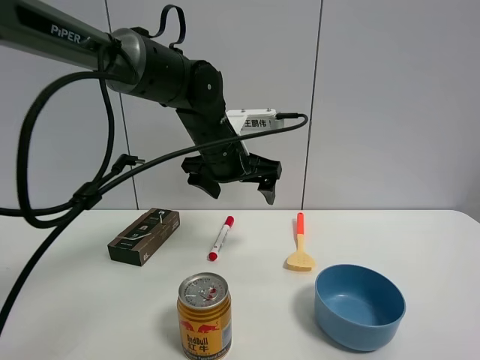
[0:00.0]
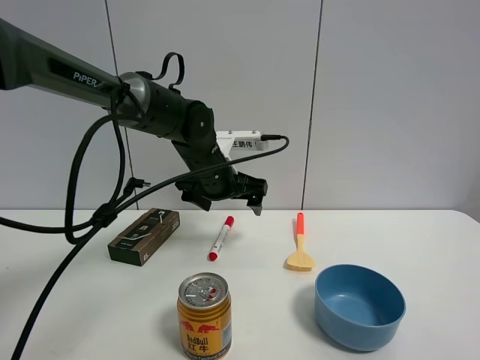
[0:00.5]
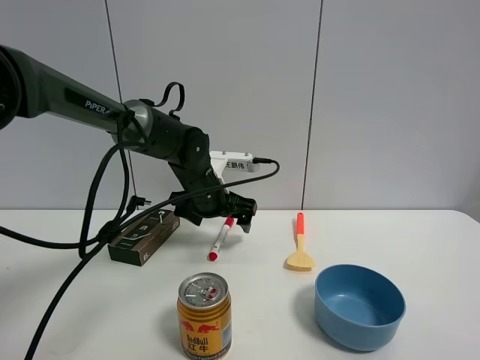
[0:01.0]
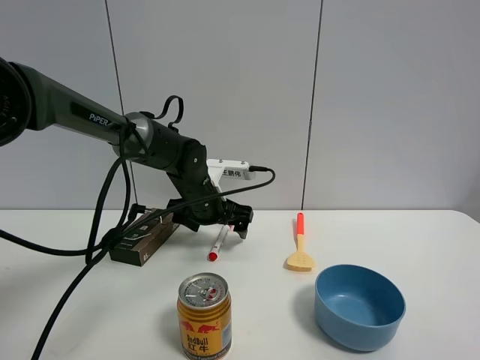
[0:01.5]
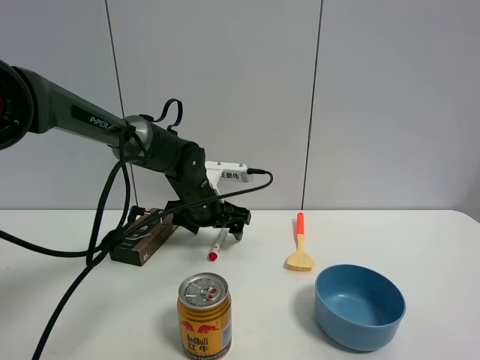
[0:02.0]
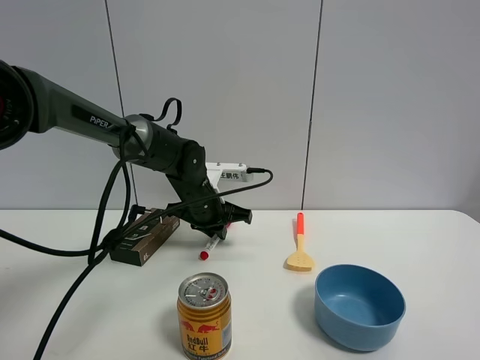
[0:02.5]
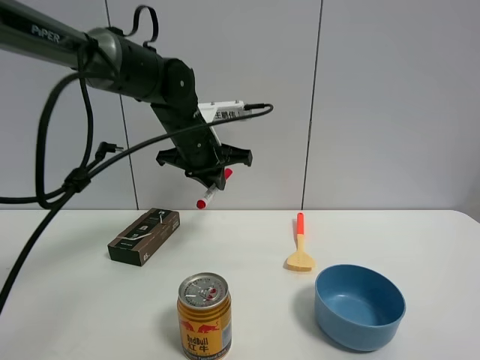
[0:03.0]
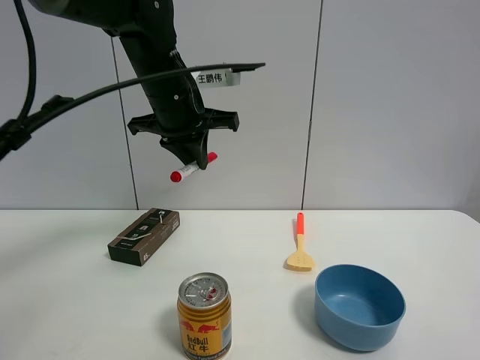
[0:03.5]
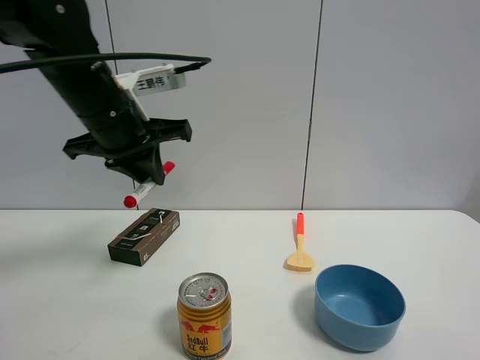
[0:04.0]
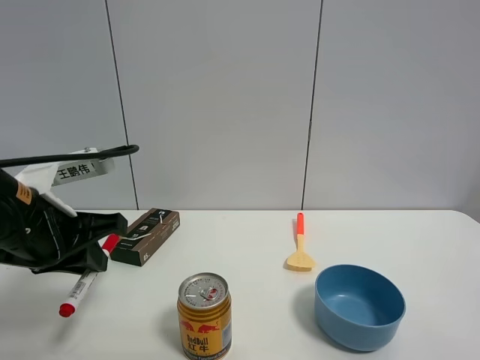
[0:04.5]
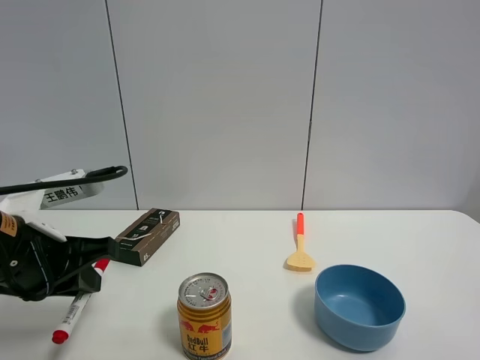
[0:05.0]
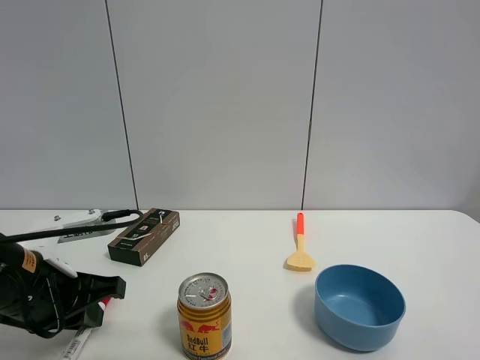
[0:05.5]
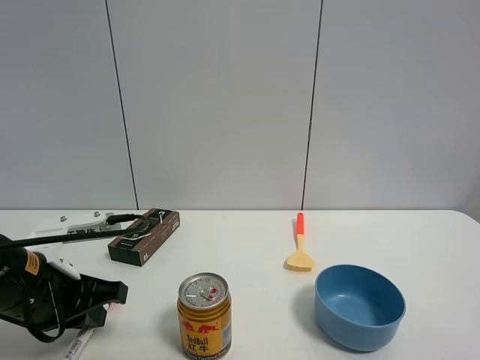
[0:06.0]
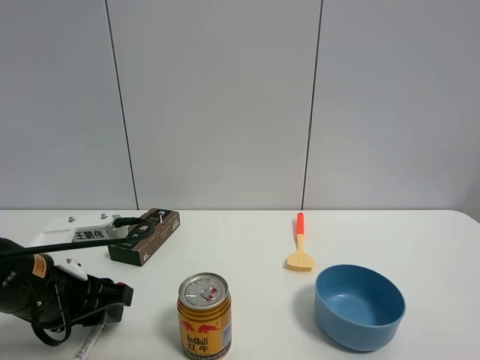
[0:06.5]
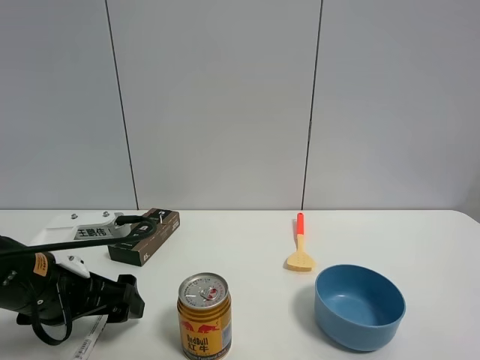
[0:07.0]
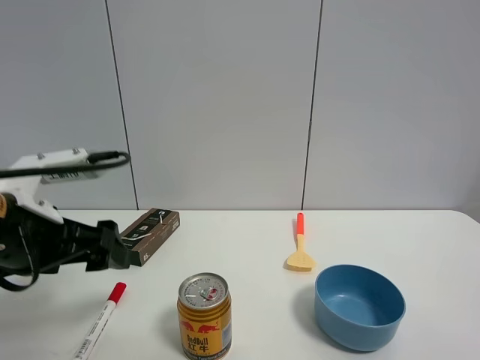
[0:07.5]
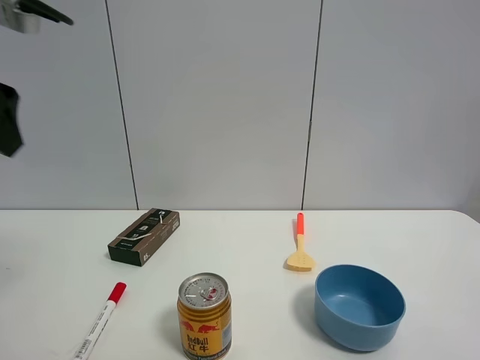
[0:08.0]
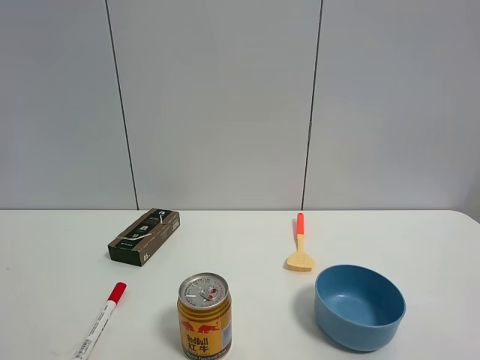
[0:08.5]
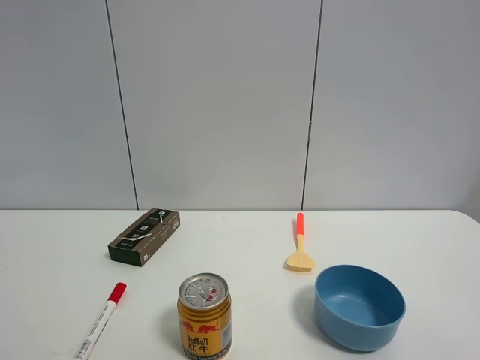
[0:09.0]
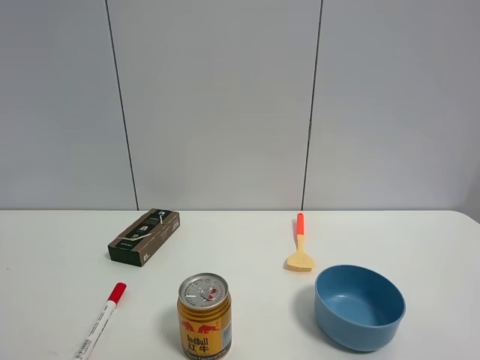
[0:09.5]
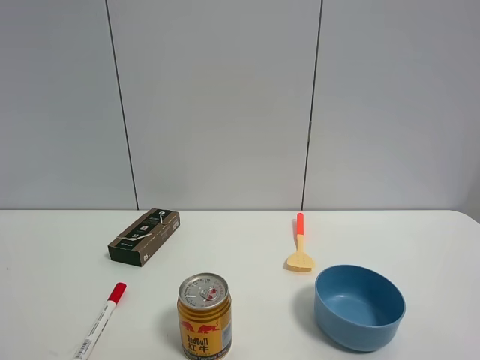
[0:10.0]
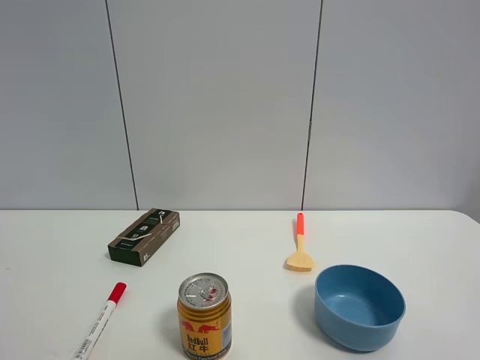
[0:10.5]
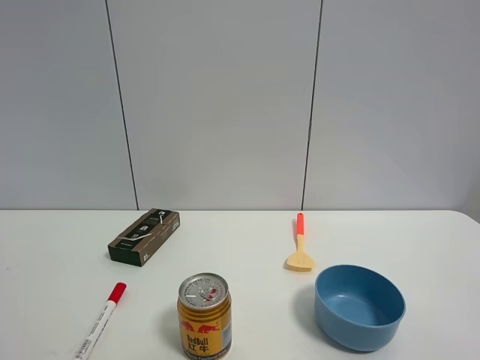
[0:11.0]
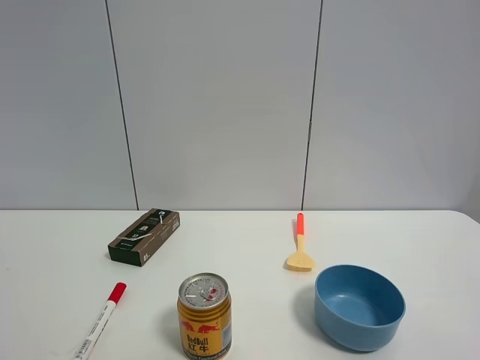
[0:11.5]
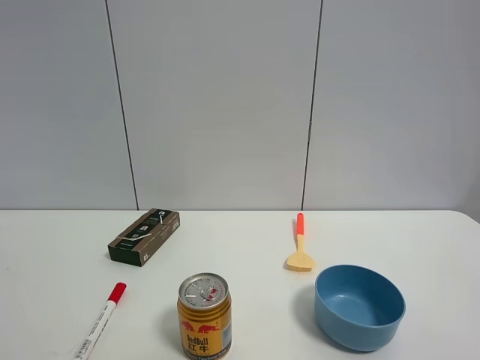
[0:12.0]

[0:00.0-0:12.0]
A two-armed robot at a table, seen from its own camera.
Task of the whole recording: the gripper move the object.
Step, 0:00.0 to 0:02.0: Grasp the red marker pen with the left gripper.
Step, 0:02.5 to 0:06.5: Place the red marker pen on the table with the left gripper.
0:00.0 to 0:02.0: The left gripper shifts some 10 cm downward.
0:02.0 to 0:04.0: The left gripper is displaced upward, backward and to the left by some 25 cm, and closes up.
0:04.0 to 0:06.0: The left gripper shifts approximately 20 cm downward and backward.
0:06.0 to 0:08.0: The left gripper goes about 25 cm upward, and opens its fingers.
0:08.0 to 0:10.0: The left gripper goes roughly 25 cm backward.

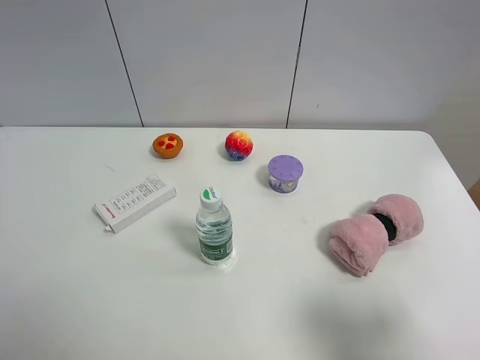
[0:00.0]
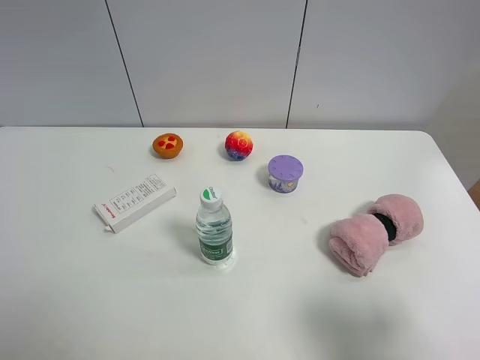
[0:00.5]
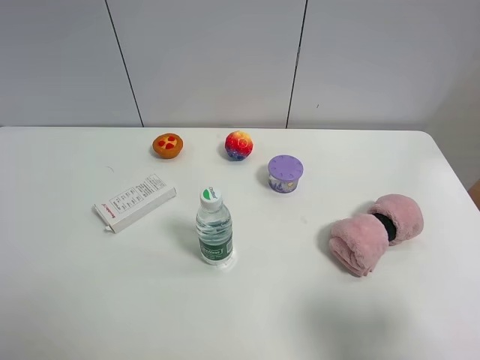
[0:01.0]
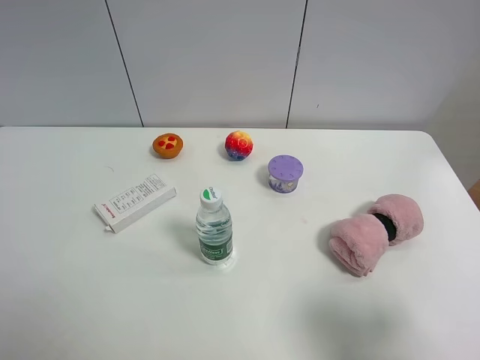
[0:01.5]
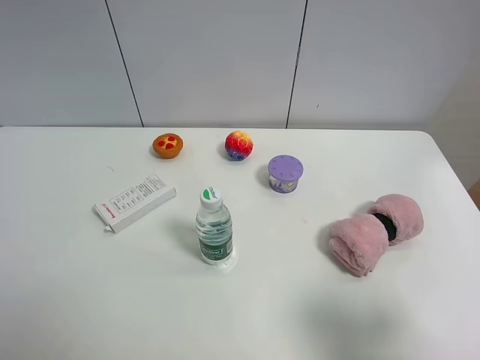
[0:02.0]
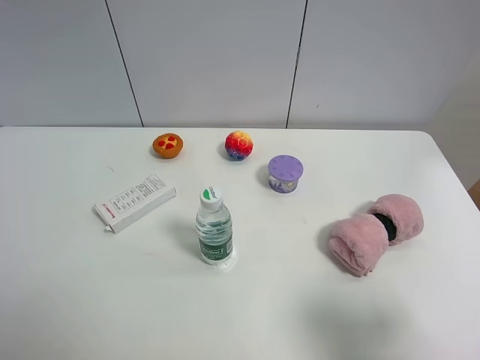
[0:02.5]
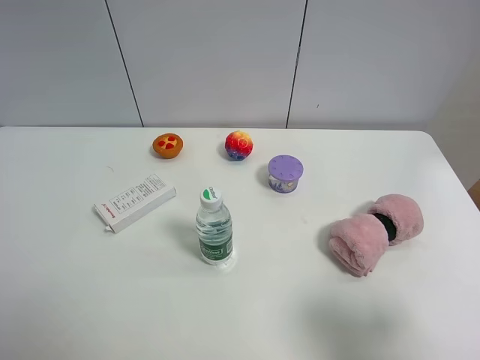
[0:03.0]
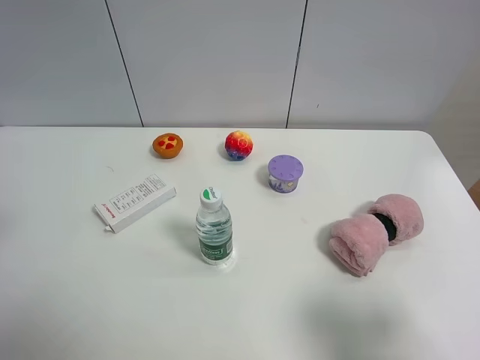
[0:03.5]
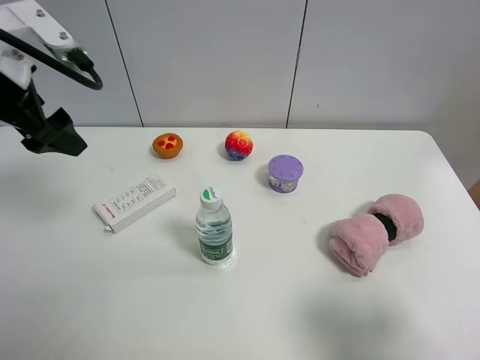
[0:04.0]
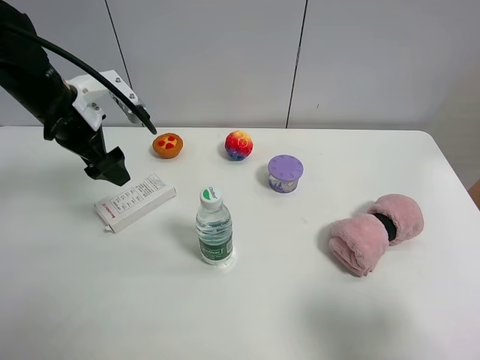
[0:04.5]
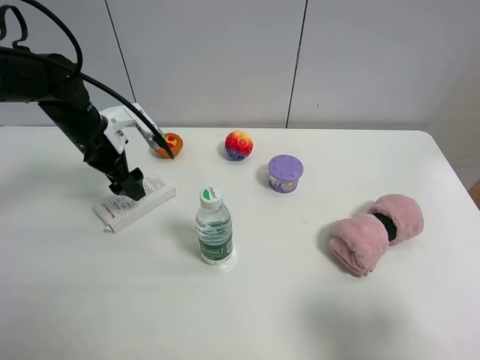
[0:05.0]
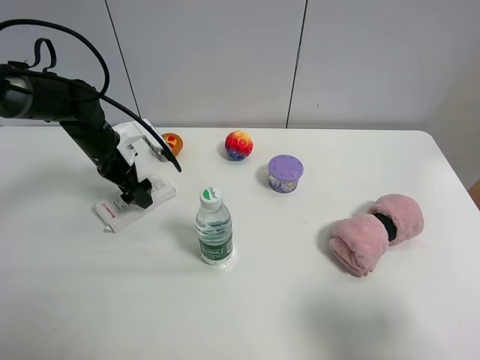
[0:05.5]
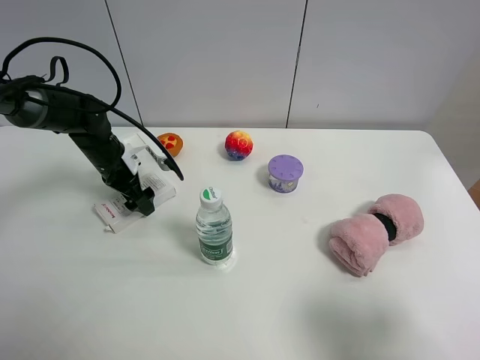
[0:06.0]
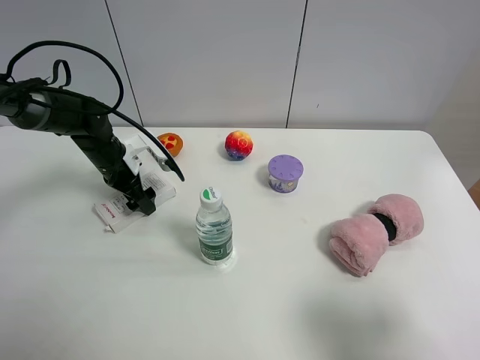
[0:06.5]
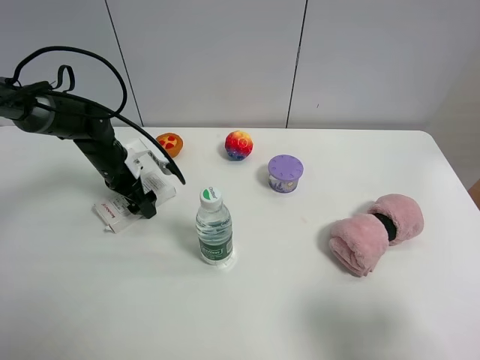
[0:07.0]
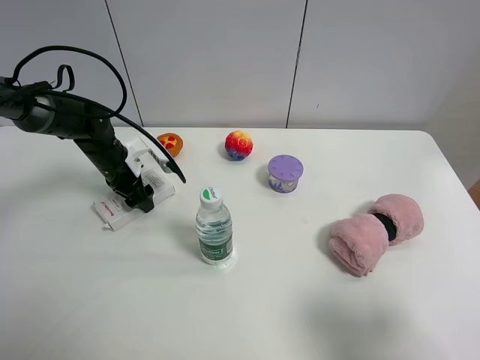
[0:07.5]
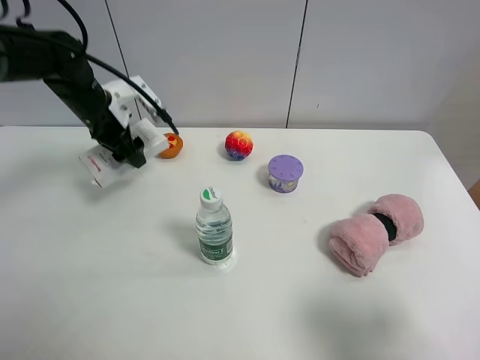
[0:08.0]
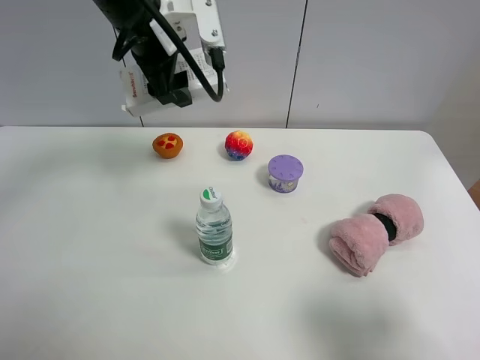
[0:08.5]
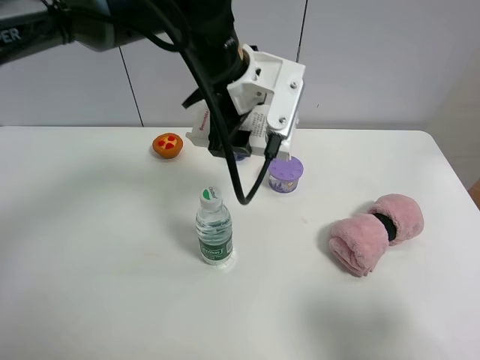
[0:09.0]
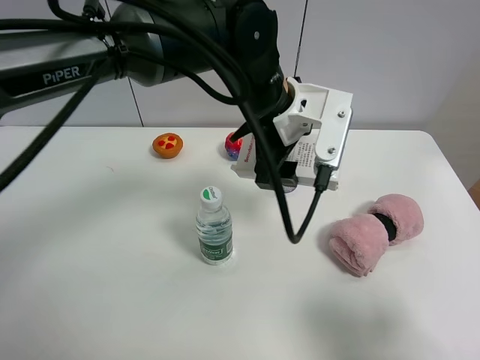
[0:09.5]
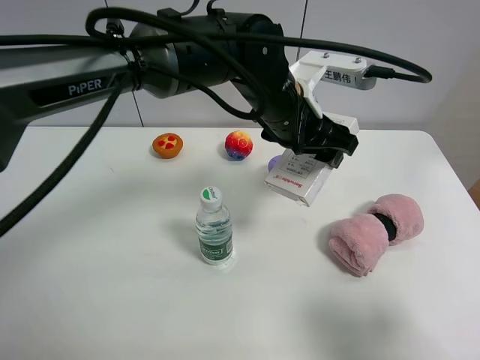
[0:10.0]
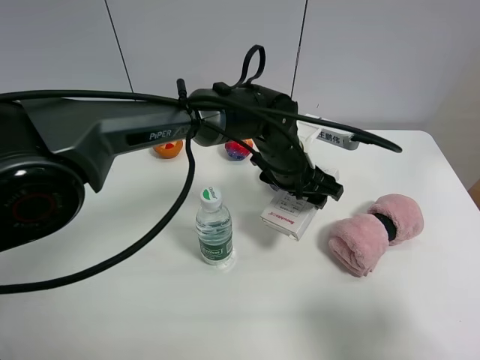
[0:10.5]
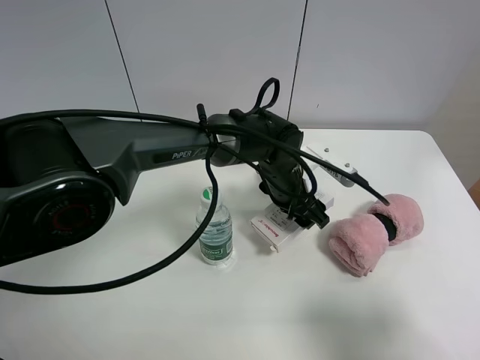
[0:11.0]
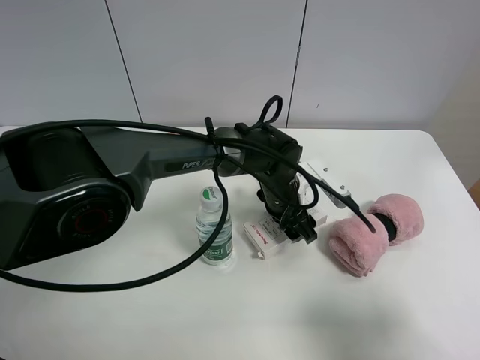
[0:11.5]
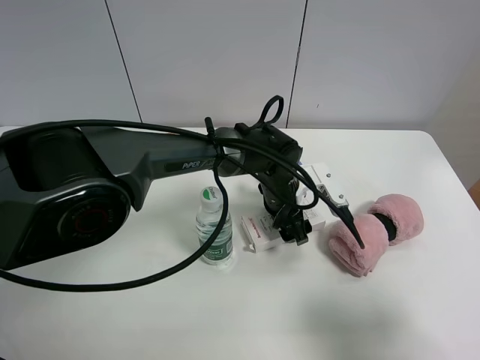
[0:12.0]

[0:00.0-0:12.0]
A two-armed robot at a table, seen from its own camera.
Task of the whole recording: the gripper move the object.
Step, 0:00.0 to 0:07.5: Grasp the USB box with the left gripper.
0:00.0 to 0:02.0: Both grippers stay put.
0:02.0 to 0:04.0: The left gripper shifts approximately 30 cm forward.
0:04.0 to 0:06.0: The left gripper moves downward and forward, roughly 25 cm.
0:06.0 to 0:08.0: The left gripper goes roughly 10 cm upward, and closes.
0:08.0 to 0:10.0: The left gripper moves to the right, roughly 30 cm.
0:10.0 to 0:12.0: The left gripper travels downward by approximately 15 cm, and opens its fingers.

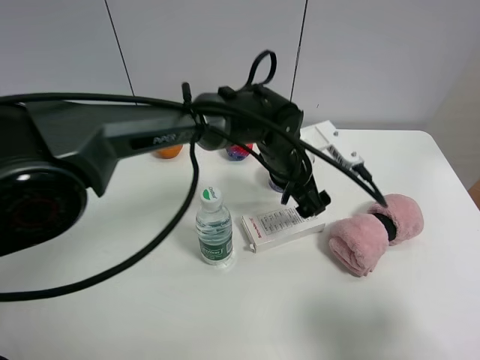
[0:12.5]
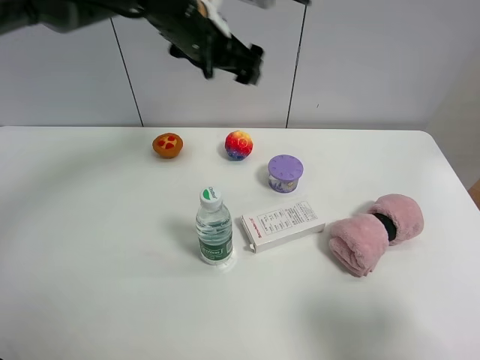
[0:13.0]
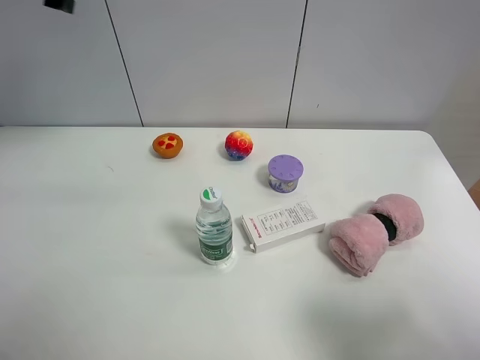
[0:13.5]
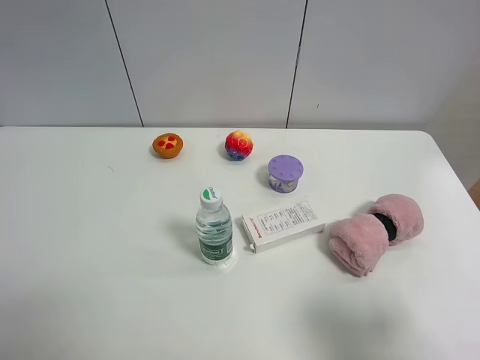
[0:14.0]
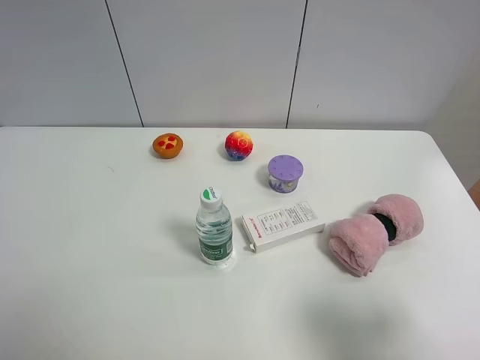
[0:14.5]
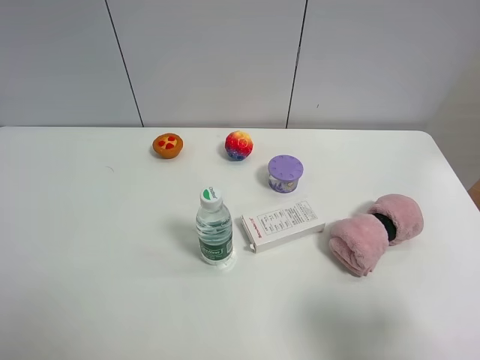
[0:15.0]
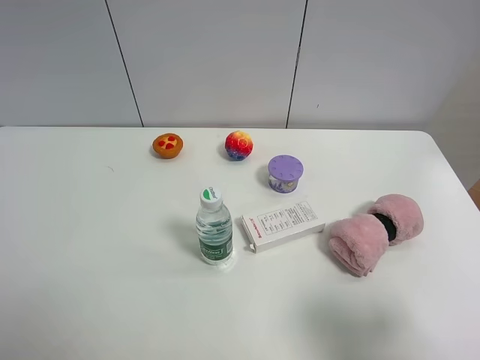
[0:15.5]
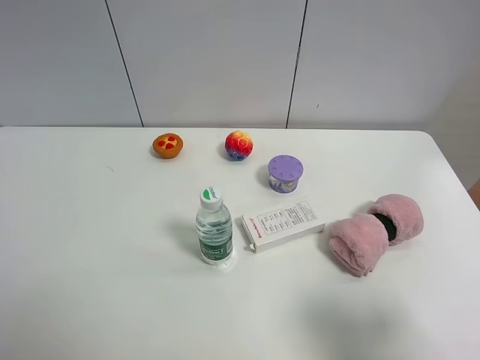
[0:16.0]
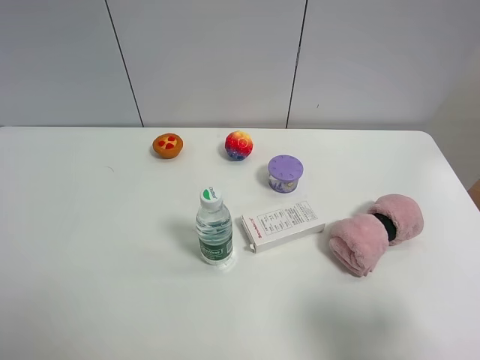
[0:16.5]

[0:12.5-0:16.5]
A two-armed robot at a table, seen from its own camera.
Task of the whole recording: the gripper move the object.
0:12.5 to 0:14.5: The left gripper moves to the left, backward and upward, about 50 cm.
